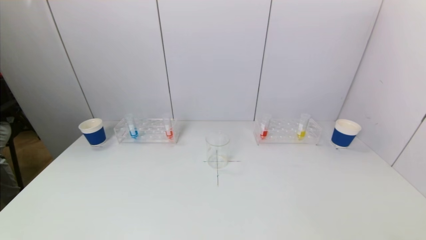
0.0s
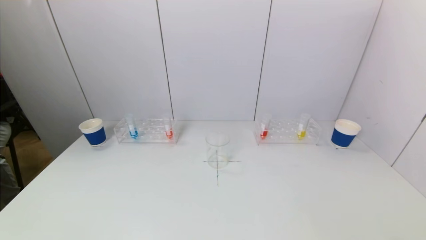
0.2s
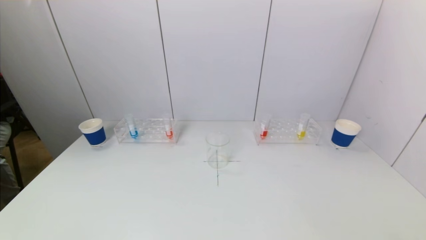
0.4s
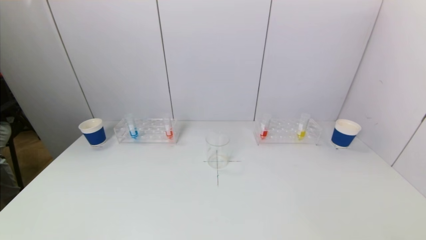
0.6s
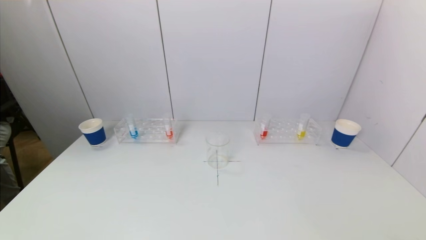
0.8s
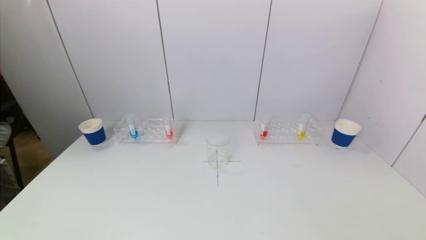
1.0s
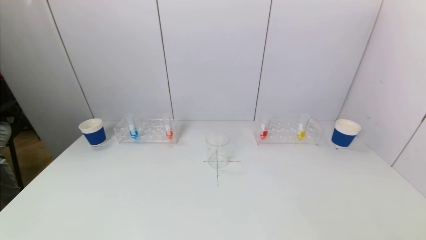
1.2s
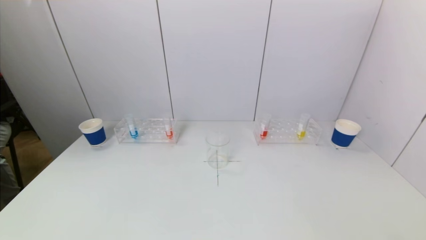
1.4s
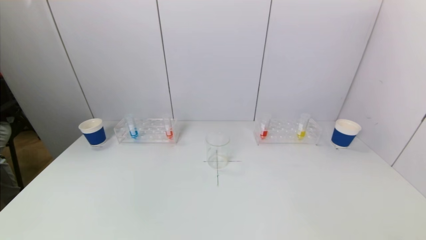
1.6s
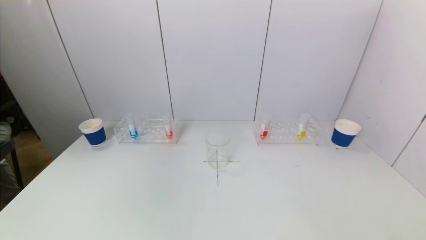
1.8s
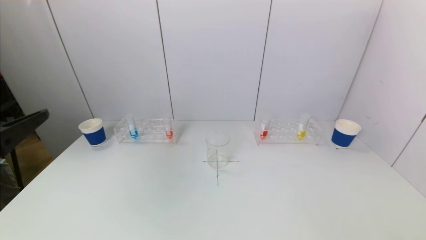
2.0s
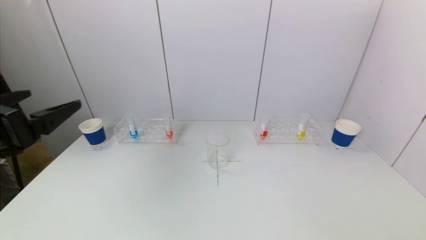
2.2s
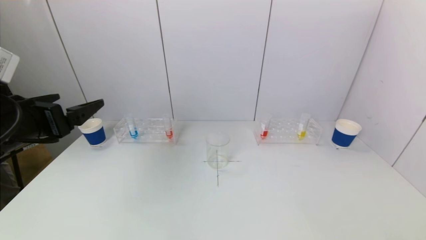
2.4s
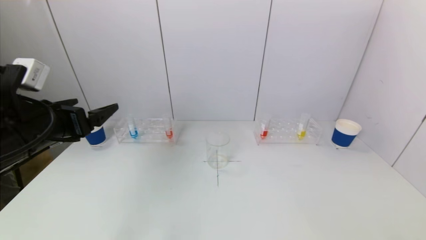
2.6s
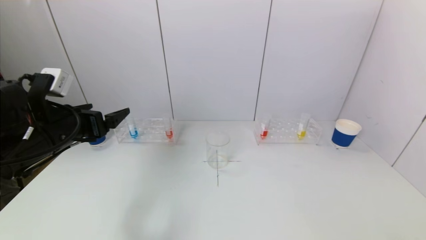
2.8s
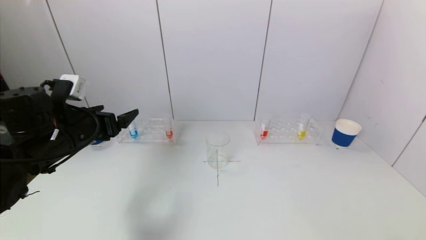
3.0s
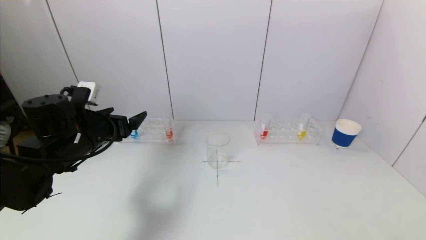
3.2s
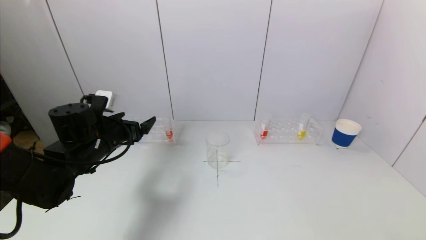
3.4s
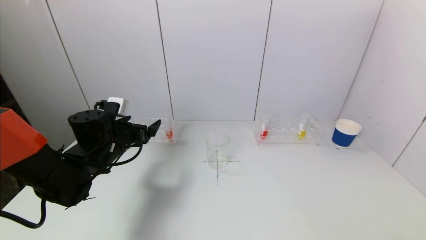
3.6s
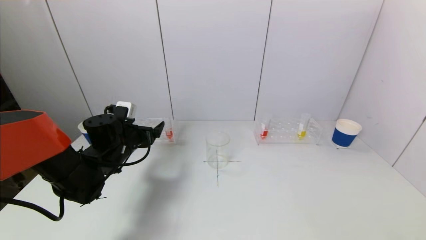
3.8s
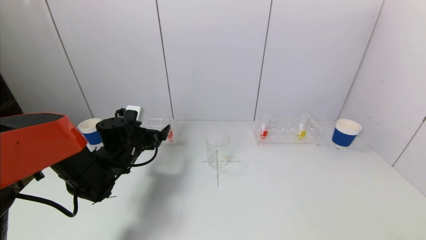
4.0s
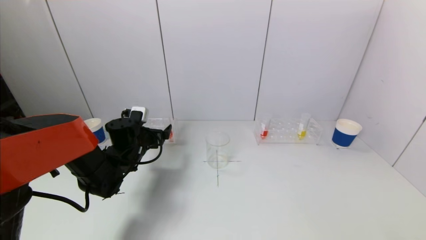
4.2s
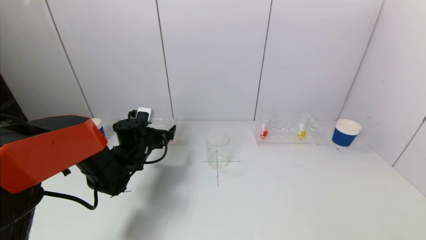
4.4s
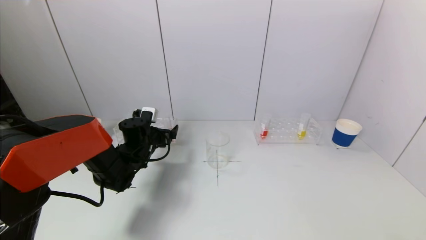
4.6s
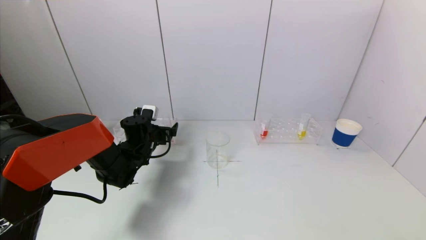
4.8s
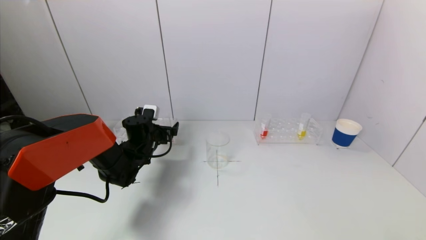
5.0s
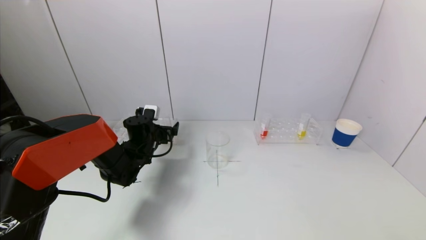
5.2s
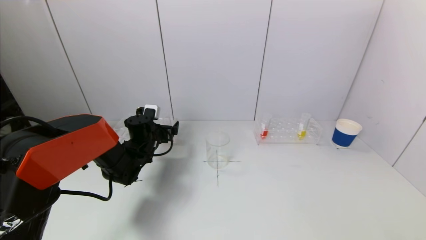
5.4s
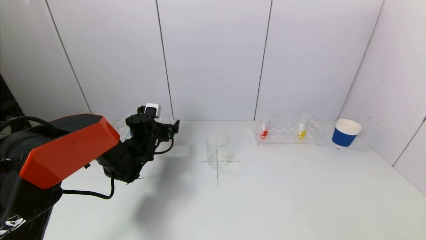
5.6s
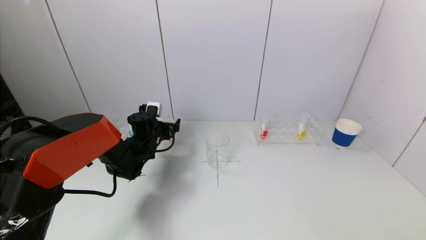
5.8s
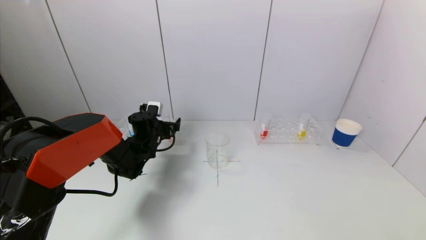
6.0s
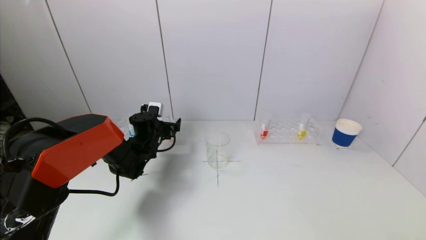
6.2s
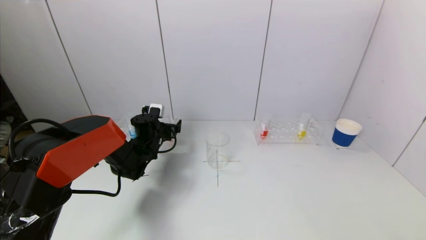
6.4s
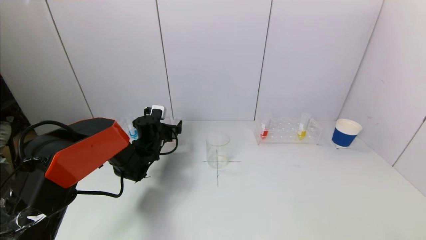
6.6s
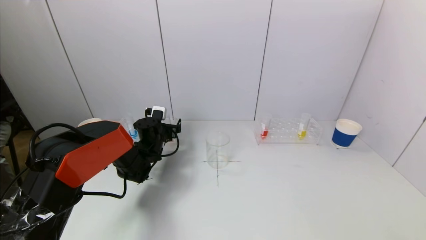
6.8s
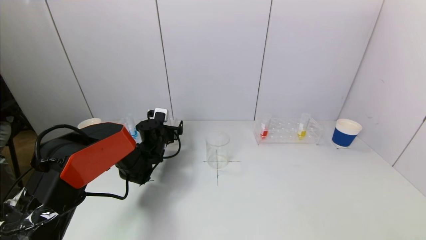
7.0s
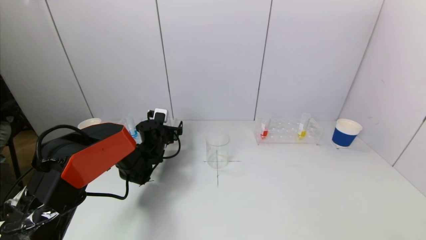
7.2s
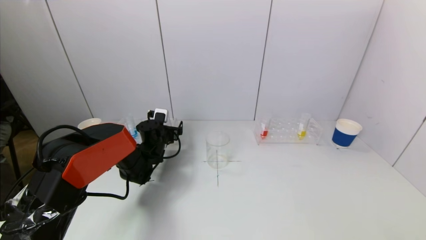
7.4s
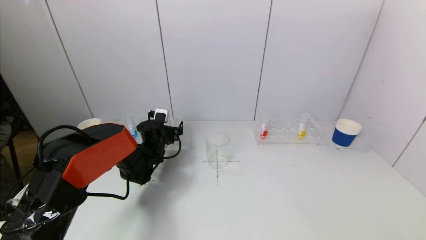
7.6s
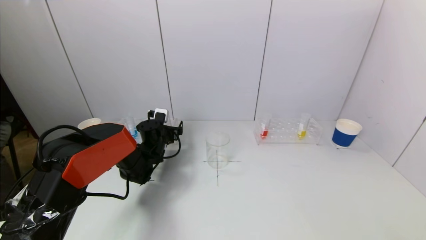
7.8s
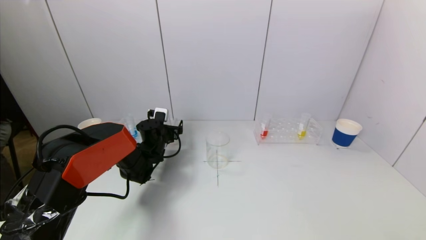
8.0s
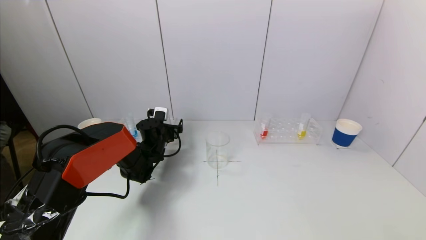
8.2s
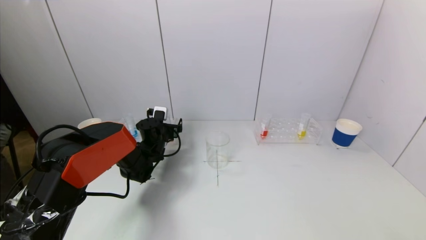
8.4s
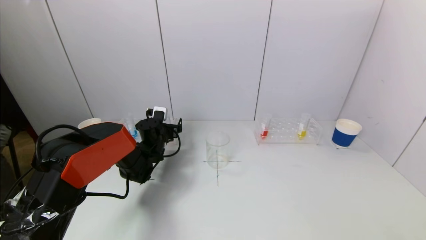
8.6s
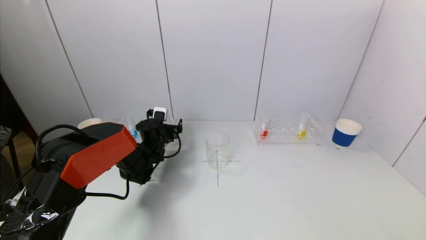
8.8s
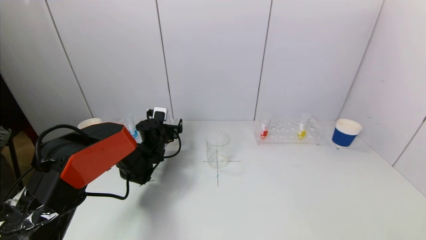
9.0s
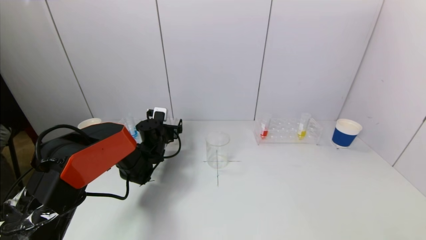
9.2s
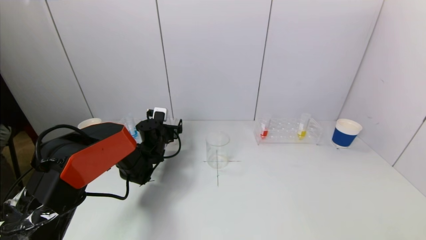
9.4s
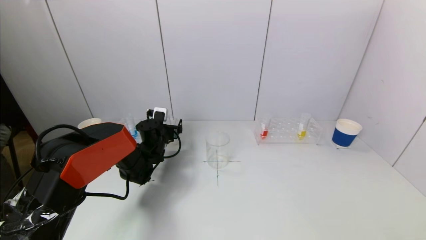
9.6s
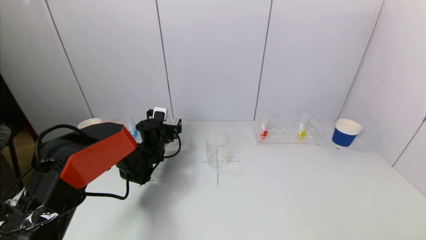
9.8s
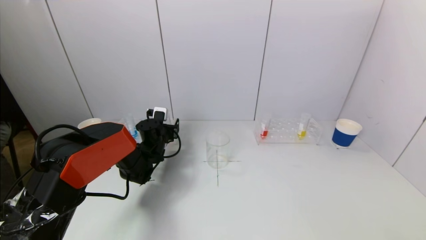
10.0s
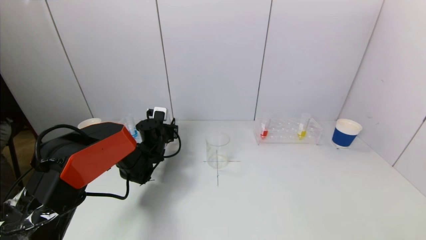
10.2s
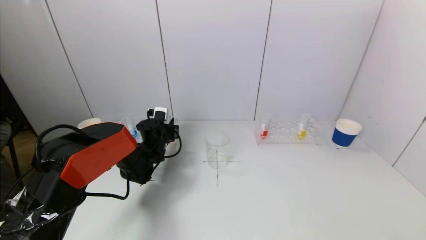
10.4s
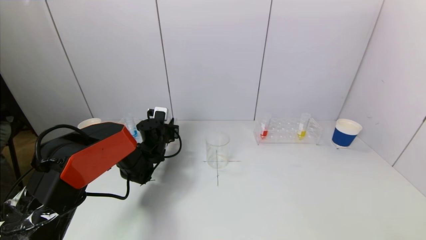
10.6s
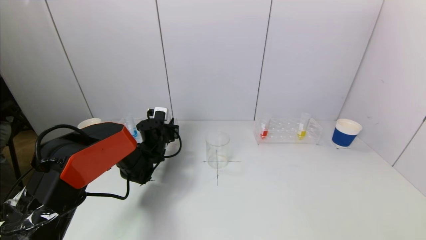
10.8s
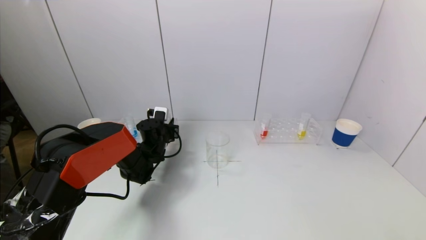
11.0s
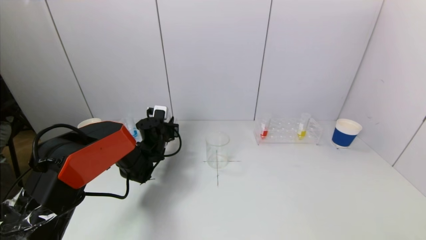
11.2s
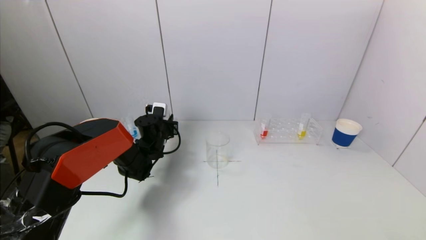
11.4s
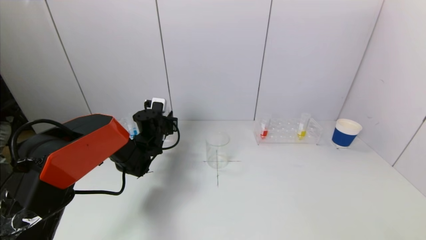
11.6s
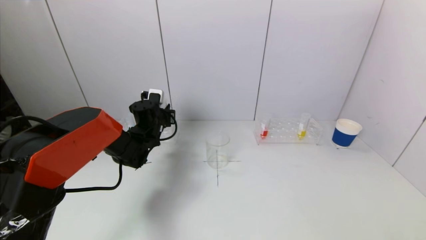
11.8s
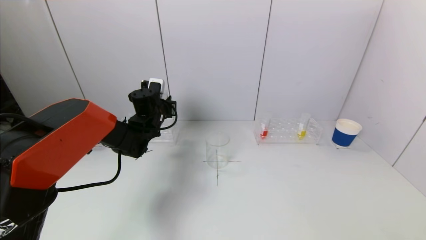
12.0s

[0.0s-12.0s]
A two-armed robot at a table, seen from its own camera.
Task of the whole recording: pick up a test tube with pigment on left test tube rack and a test tube with pigment on right test tube rack by grippers and pour them into the beaker.
Step, 0.0s to 10.8s: Grasp the red reagent with the left gripper.
1.6s to 3.0s: The left gripper shifts approximately 25 cm forward.
3.0s to 4.4s: The left gripper moves downward, forward and to the right, some 20 cm.
4.4s to 6.0s: The grippers make only small movements.
6.0s to 7.6s: The grippers move only a little.
7.6s to 9.0s: The two grippers keep their place.
10.4s to 12.0s: The left gripper is displaced upward by roughly 10 cm.

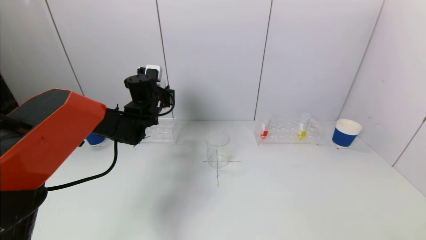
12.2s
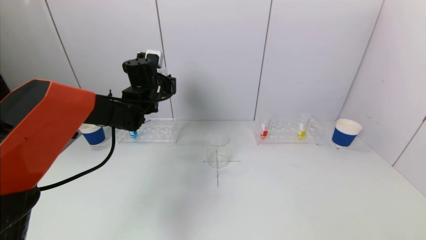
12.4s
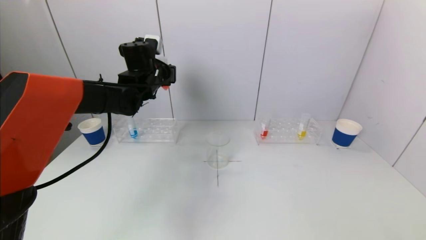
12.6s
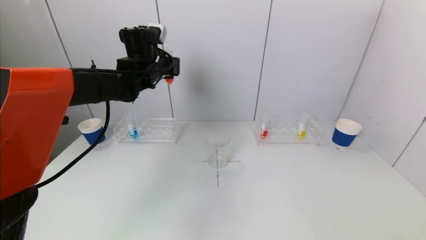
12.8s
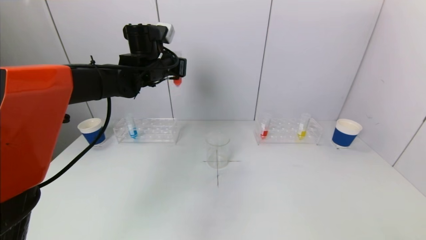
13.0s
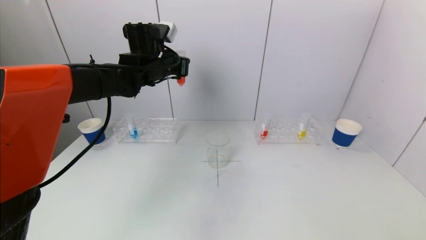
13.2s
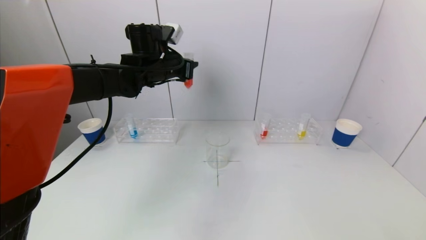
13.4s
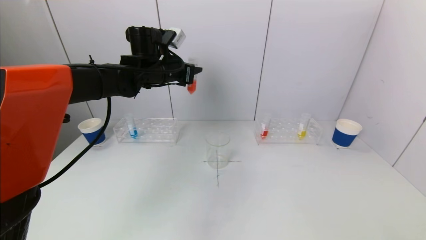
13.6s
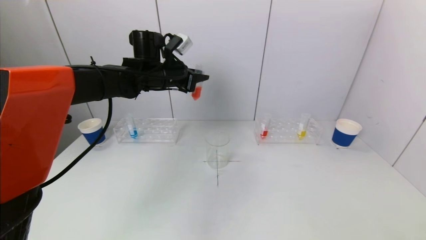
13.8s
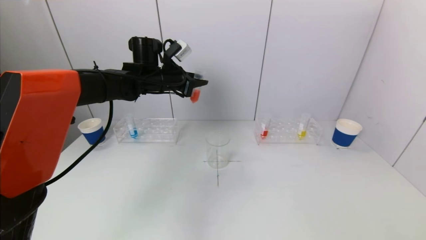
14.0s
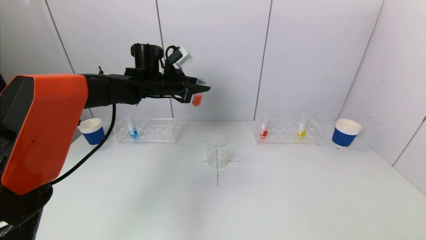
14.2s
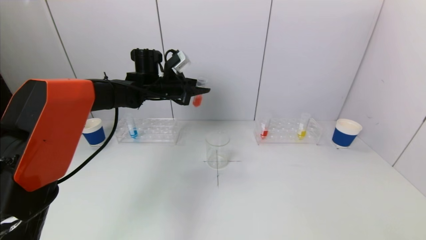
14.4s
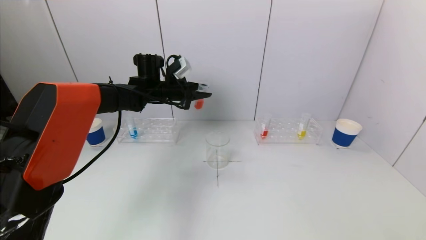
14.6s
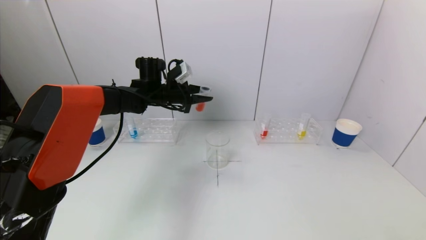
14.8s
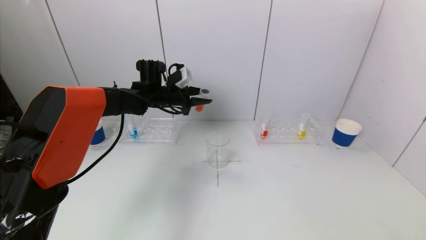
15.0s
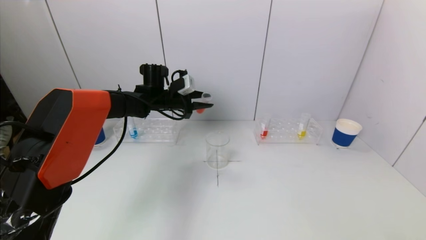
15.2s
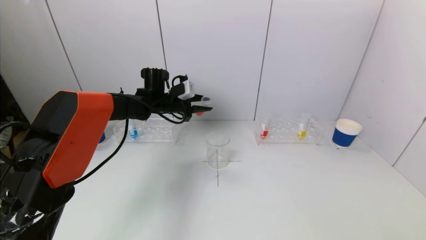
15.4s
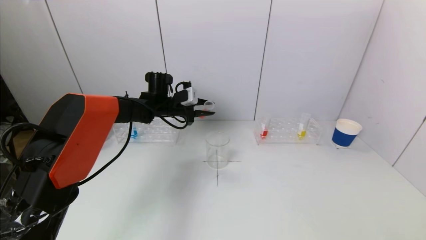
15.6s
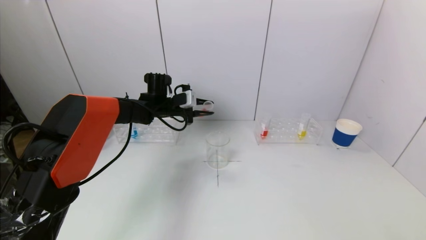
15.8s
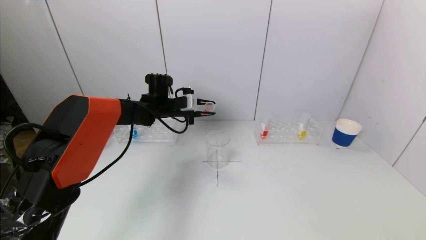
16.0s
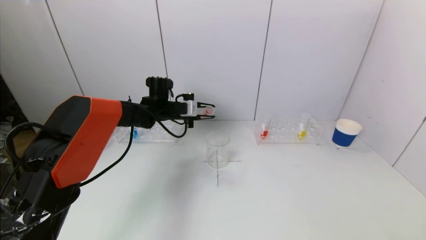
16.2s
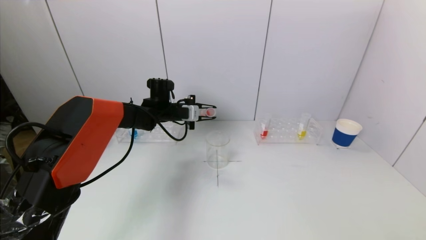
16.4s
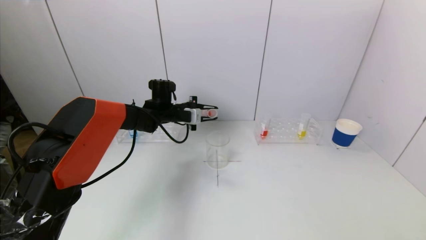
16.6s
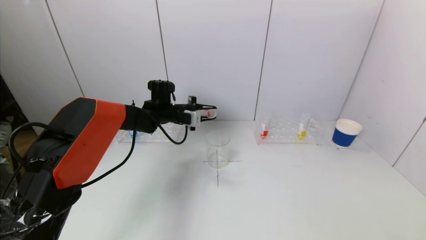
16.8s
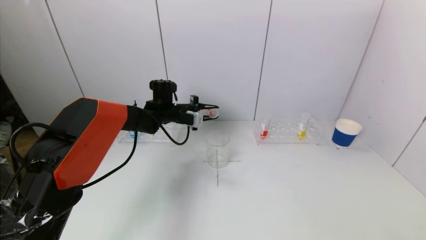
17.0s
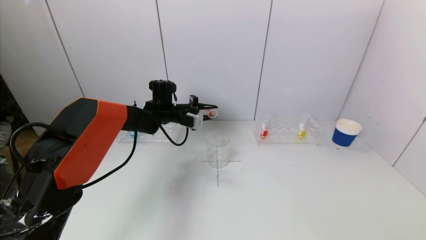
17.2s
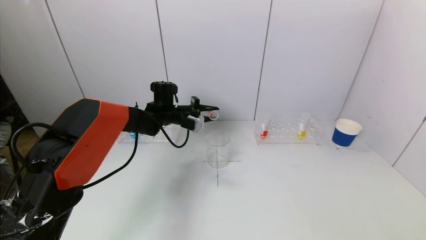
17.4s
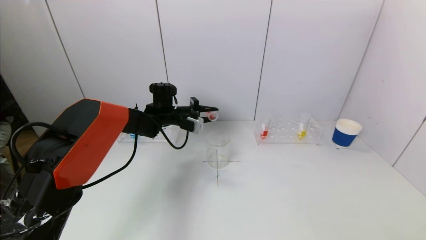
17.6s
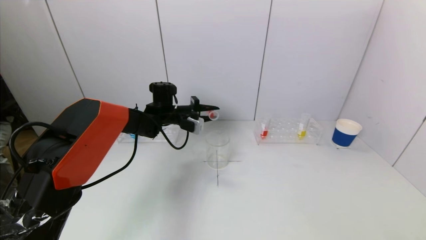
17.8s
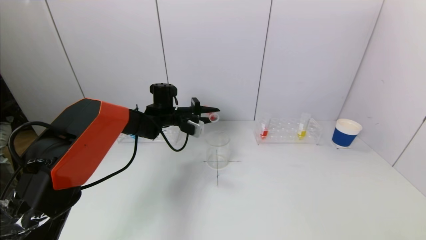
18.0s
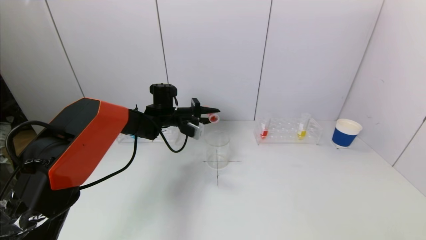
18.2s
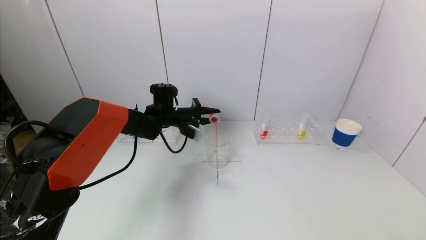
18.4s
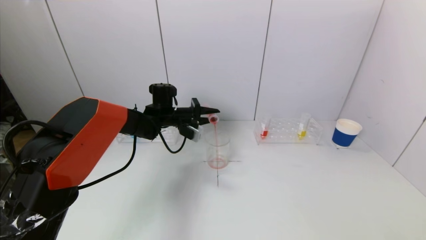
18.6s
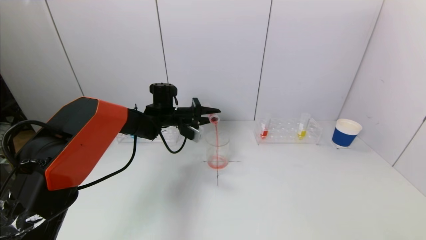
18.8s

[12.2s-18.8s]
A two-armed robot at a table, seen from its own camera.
Task of the whole recording: pick up a test tube with pigment on left test tube rack and a test tube with pigment on right test tube rack by grippers and pour them into the beaker.
12.2s to 13.8s: The left gripper goes some 10 cm upward.
13.8s to 15.4s: The left gripper heads downward, covering roughly 10 cm.
17.2s to 18.8s: The grippers make only small movements.
